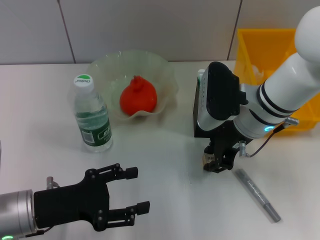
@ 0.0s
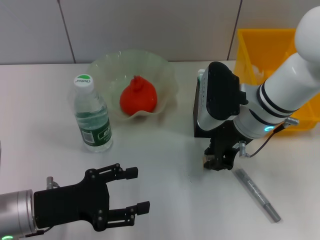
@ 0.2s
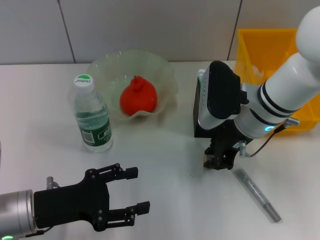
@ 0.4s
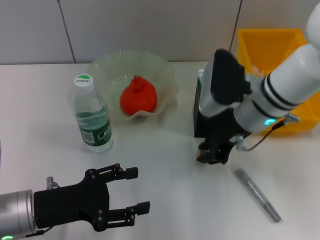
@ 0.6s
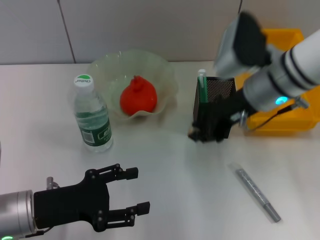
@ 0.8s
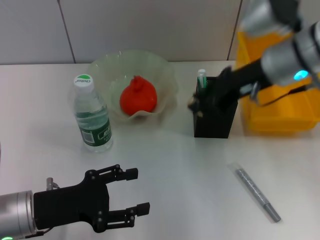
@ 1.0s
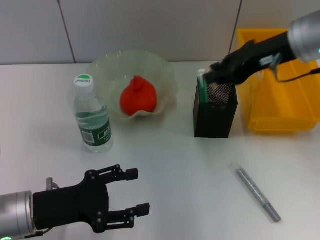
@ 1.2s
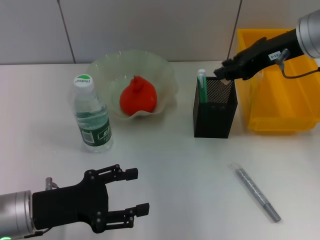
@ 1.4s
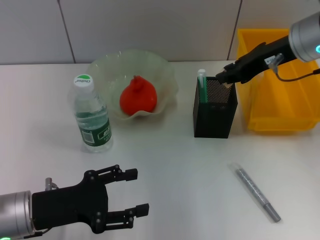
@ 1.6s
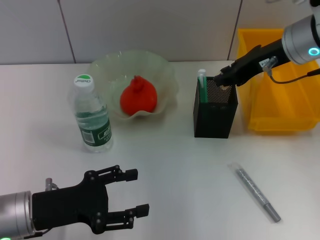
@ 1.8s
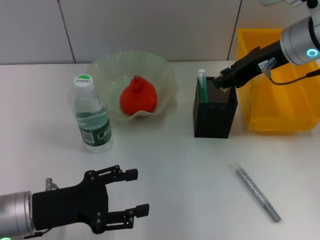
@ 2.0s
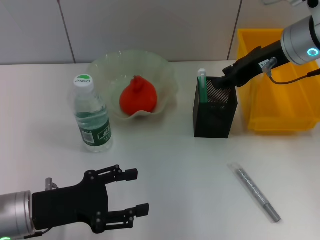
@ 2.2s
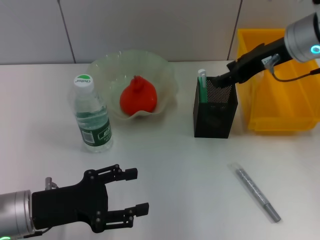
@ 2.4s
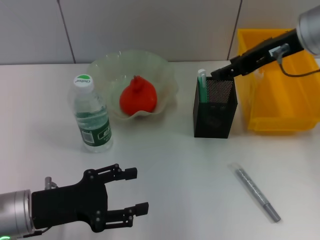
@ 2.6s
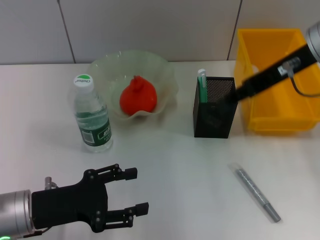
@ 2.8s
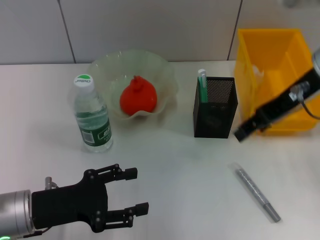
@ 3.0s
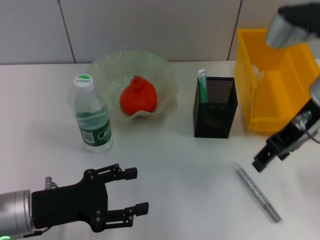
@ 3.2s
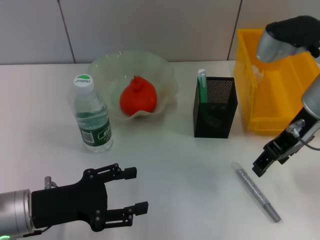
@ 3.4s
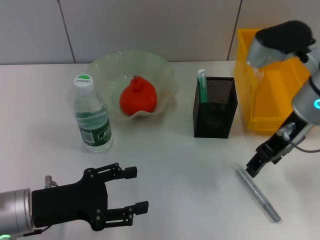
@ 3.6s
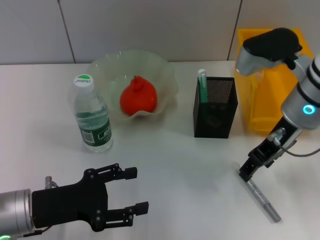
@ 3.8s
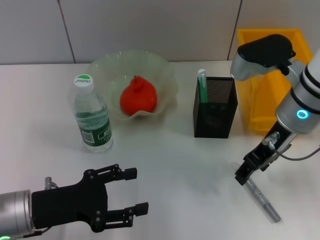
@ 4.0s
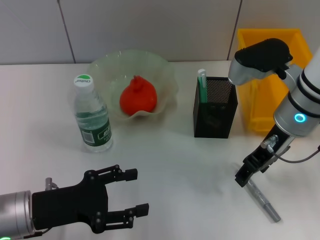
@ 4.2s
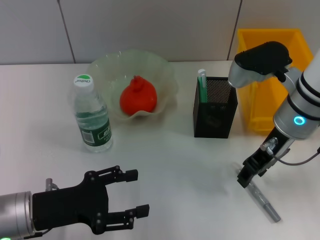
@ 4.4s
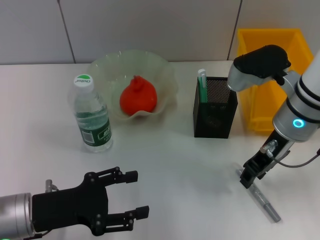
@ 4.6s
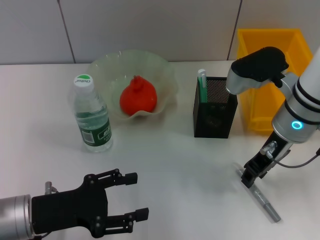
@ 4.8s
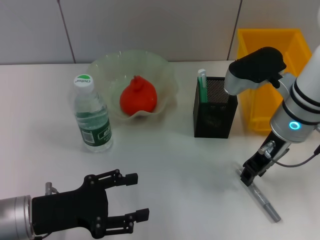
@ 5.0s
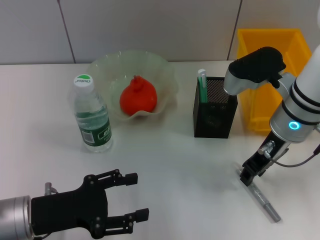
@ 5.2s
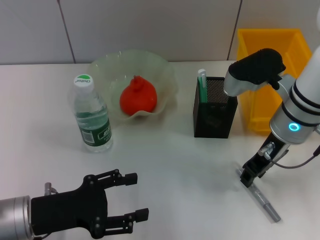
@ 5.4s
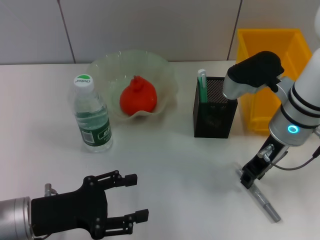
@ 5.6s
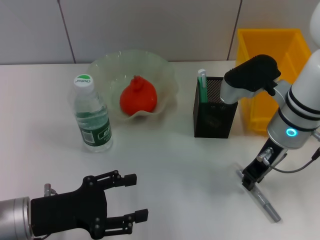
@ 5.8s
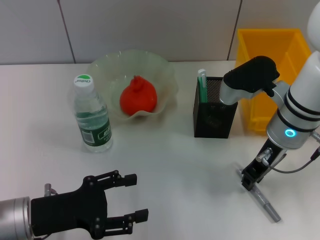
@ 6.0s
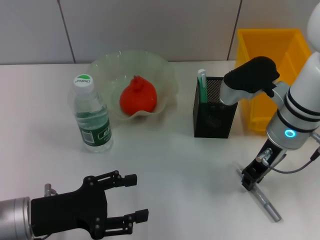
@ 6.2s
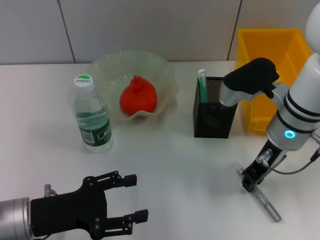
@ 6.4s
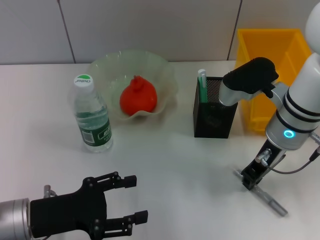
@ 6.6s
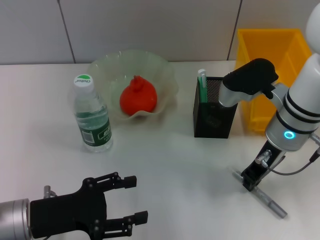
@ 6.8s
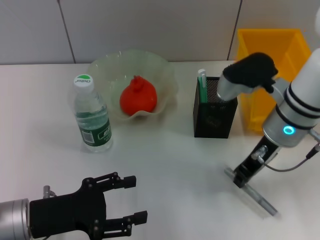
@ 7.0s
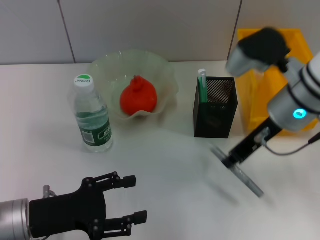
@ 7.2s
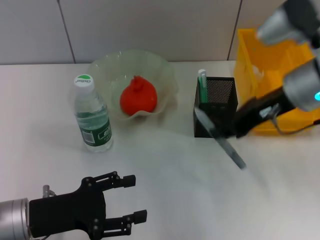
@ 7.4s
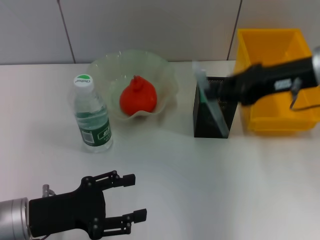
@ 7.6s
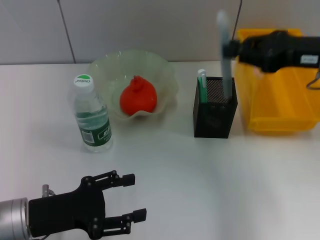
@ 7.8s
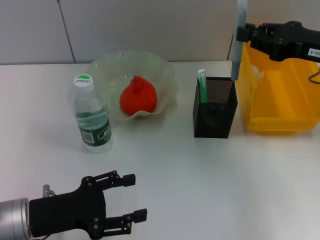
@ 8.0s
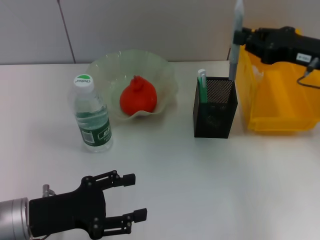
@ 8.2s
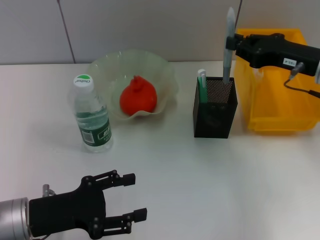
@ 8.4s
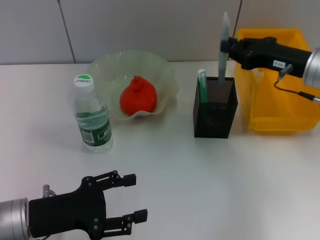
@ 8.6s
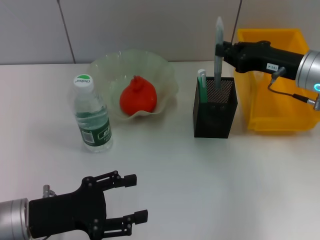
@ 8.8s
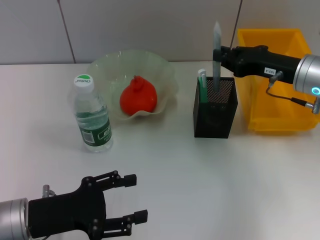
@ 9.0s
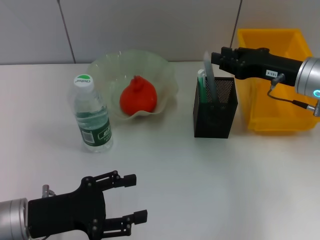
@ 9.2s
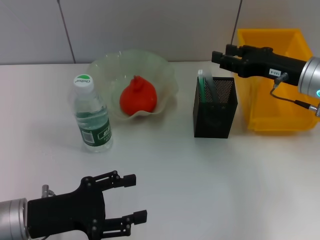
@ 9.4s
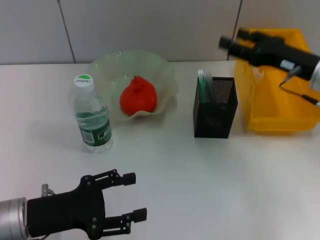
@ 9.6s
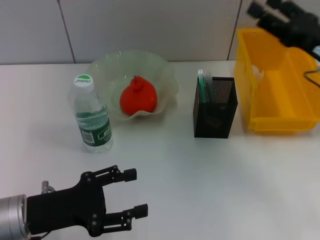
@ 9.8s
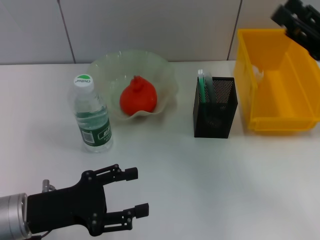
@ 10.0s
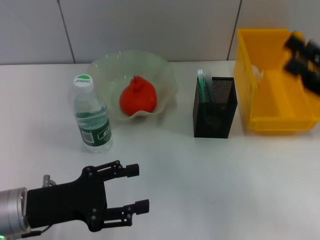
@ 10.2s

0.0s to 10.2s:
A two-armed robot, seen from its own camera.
Step, 0.4s to 2.2s: Put the eraser into the pen holder with the right hand.
Step, 2.4s to 6.6s: Grab the gray glue with the right hand.
Step, 6.8s to 9.4s: Place the gray glue into the pen holder with the right hand.
0.0s to 1.4s: The right gripper goes approximately 15 cm upward and to the right.
1.4s to 3.0s: The right gripper opens up.
3.0s to 4.4s: The right gripper goes roughly 10 cm downward.
4.4s to 7.2s: There are only small adjustments of the grippers.
7.2s to 8.8s: The right gripper travels to the right by approximately 5 cm.
8.8s to 10.2s: The right gripper goes some 15 cm backward and to the right, and opens its fingers.

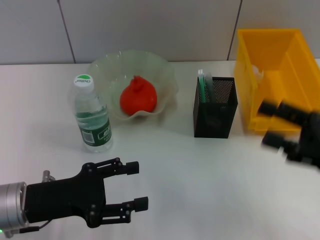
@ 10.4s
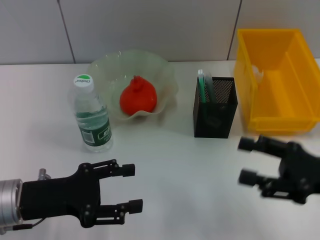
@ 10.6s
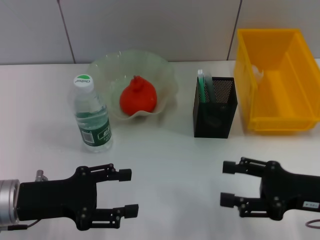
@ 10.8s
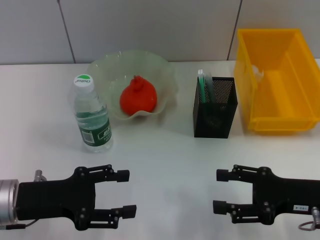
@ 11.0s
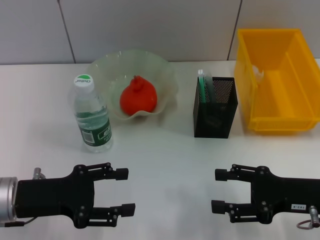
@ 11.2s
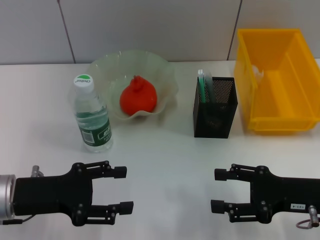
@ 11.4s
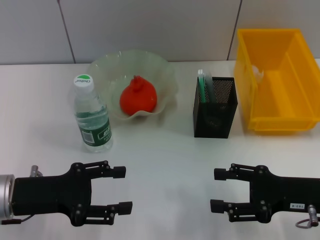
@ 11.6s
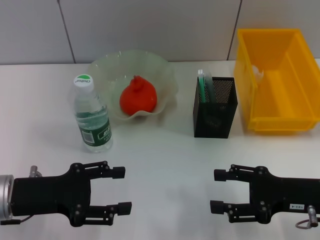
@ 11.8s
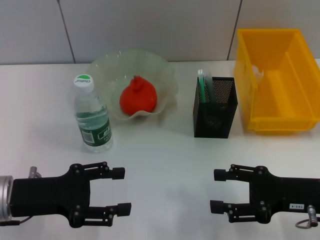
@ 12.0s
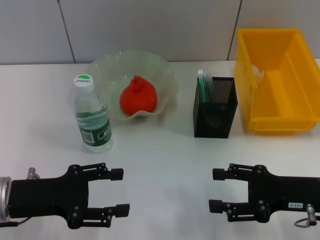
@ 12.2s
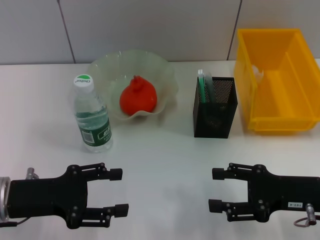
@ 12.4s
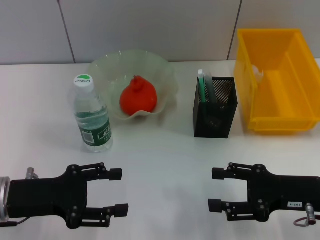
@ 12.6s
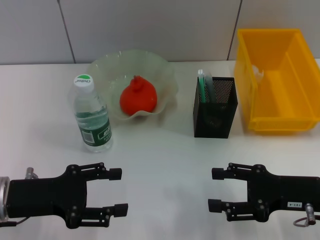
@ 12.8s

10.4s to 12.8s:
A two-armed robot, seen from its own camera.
10.4s to 11.6s: The right gripper shifts roughly 5 cm downward.
11.6s to 12.8s: Both grippers stay put.
